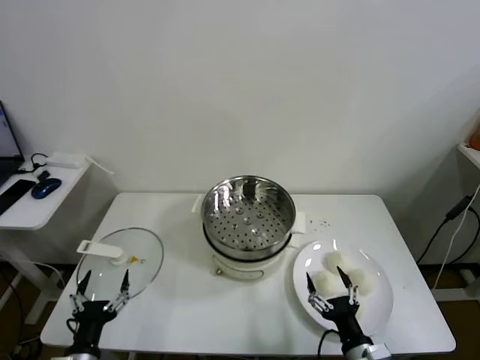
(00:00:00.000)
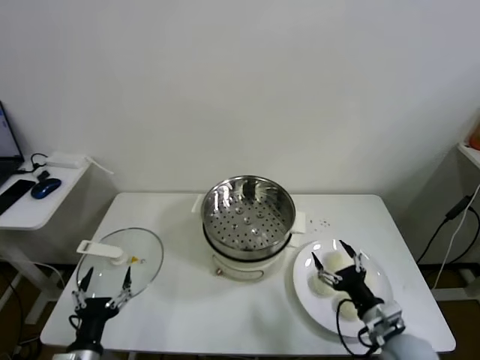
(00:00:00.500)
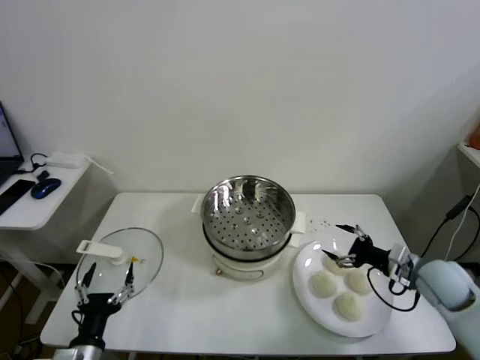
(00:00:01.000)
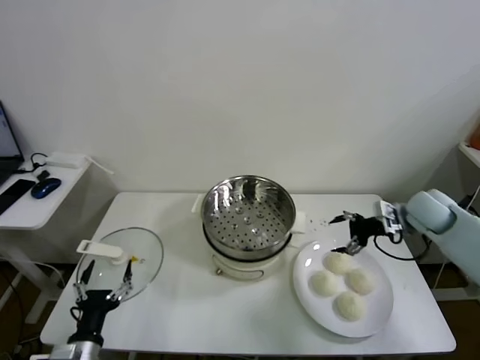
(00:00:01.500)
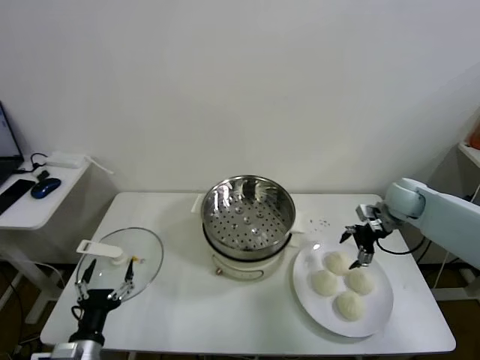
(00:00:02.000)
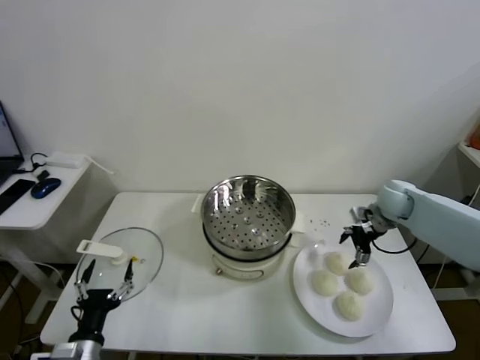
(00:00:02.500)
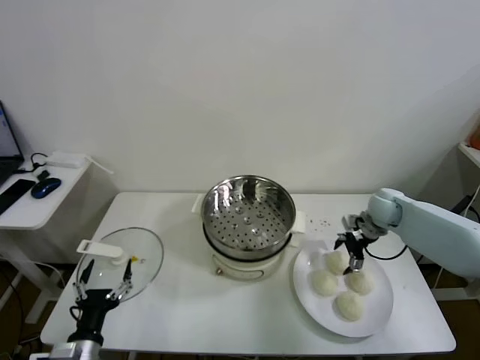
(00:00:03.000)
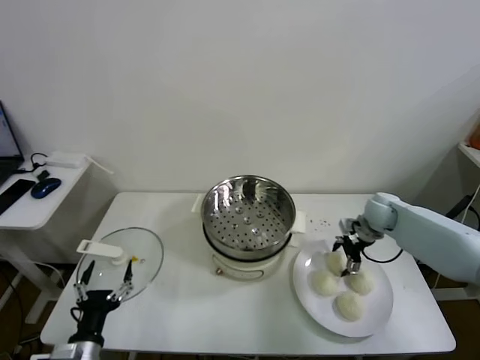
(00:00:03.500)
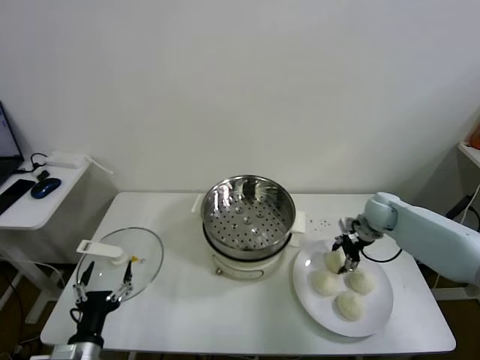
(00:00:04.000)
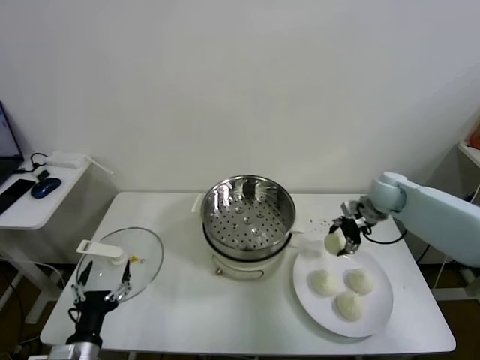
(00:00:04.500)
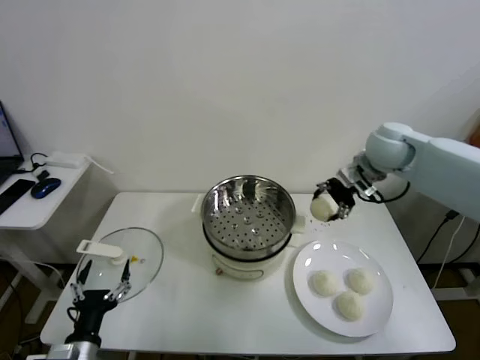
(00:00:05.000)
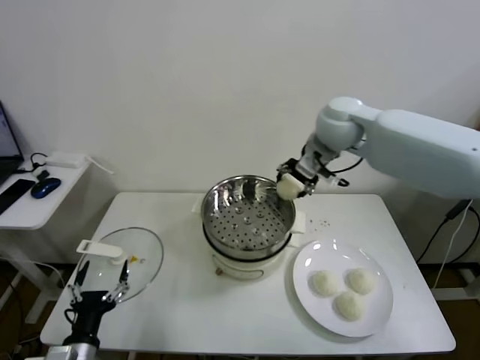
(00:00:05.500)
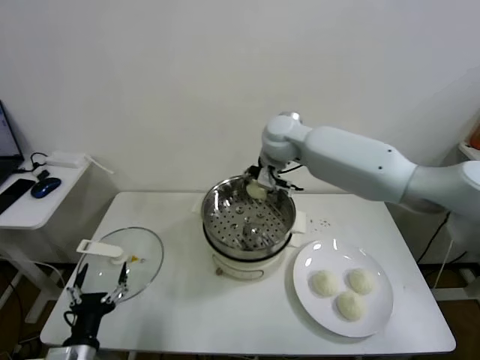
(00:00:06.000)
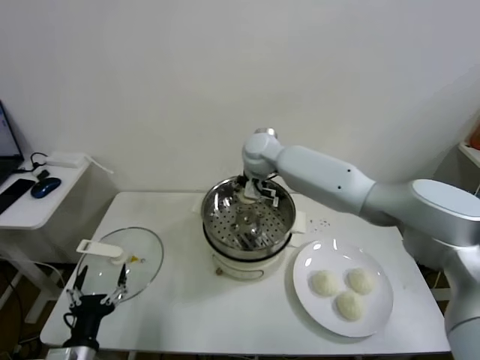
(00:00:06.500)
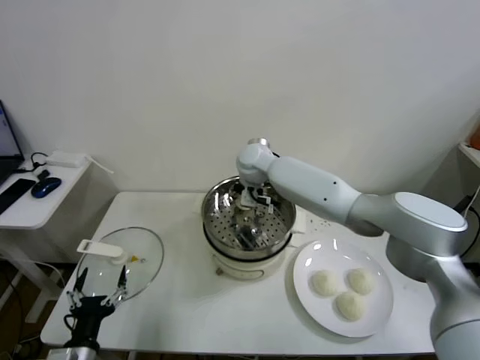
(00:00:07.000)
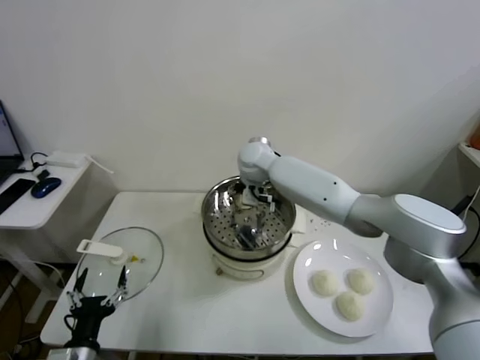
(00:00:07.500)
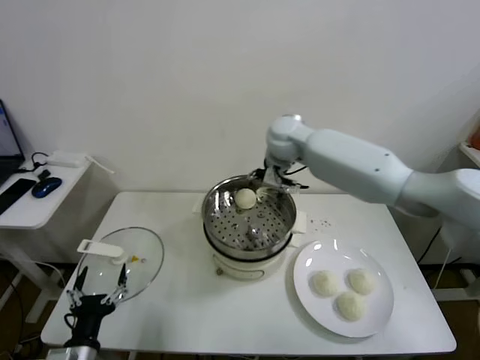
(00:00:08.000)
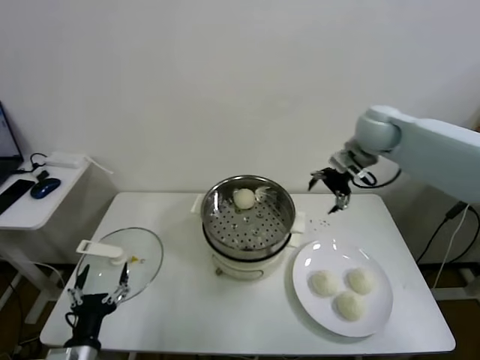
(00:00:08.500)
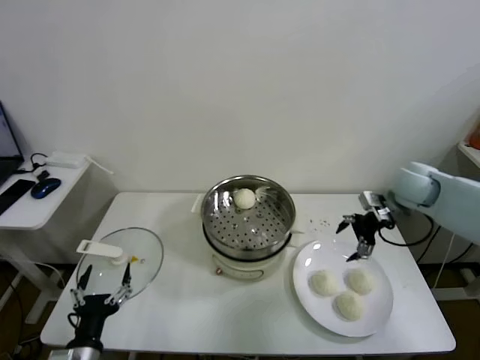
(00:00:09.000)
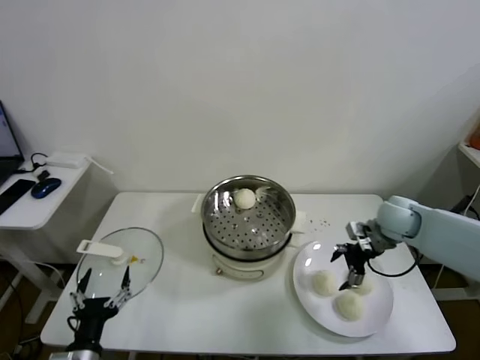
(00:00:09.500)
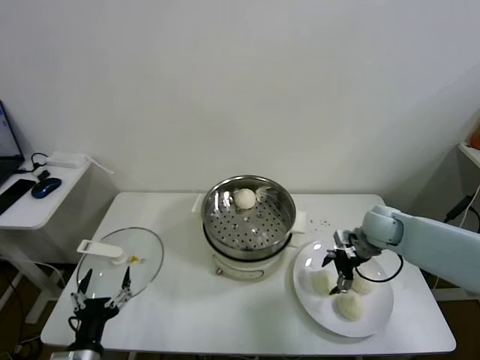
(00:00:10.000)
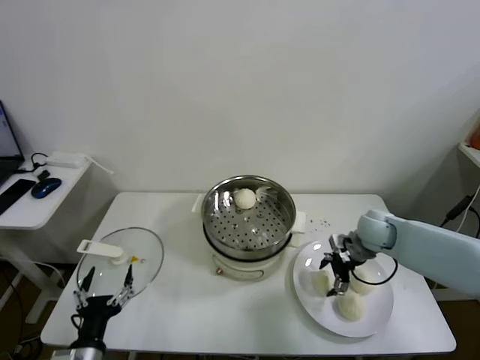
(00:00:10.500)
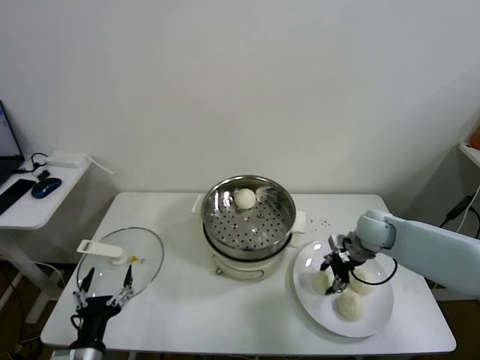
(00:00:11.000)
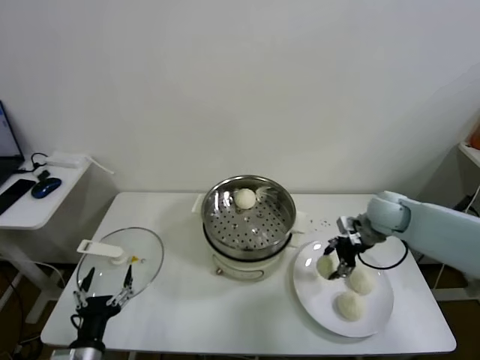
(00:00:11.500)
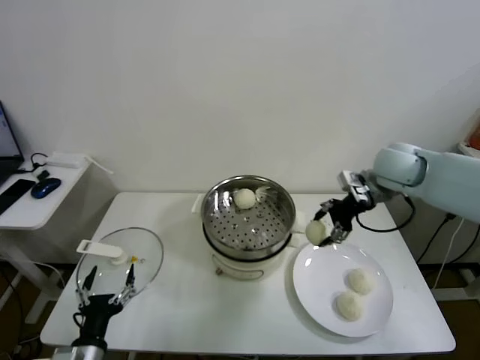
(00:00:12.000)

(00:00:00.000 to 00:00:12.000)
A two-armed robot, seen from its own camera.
Task of the whole recording: take steamed baozi put them in steamer.
Step, 00:00:00.000 - 00:00:03.500: Grasp the baozi in the plate with right gripper.
Step, 00:00:04.000 - 00:00:07.500: Place the baozi on the steamer with right gripper.
Step, 00:00:08.000 - 00:00:11.000: Grasp the baozi in the plate with right gripper.
00:00:02.000 - 00:00:04.000: The right gripper goes some 5 cm downward, and closes its fingers.
00:00:04.000 - 00:00:06.000: The right gripper shifts roughly 35 cm to the left and upward.
00:00:06.000 - 00:00:08.000: The right gripper shifts about 5 cm to the right, and opens up.
00:00:08.000 - 00:00:10.000: The right gripper is displaced to the right, downward and backward by about 30 cm.
00:00:10.000 - 00:00:12.000: The right gripper shifts some 20 cm upward, and closes its fingers.

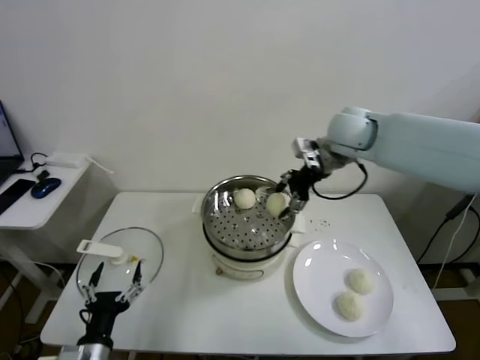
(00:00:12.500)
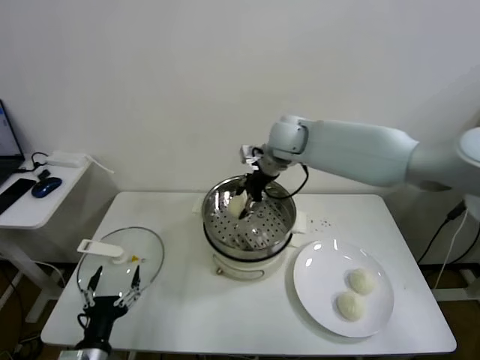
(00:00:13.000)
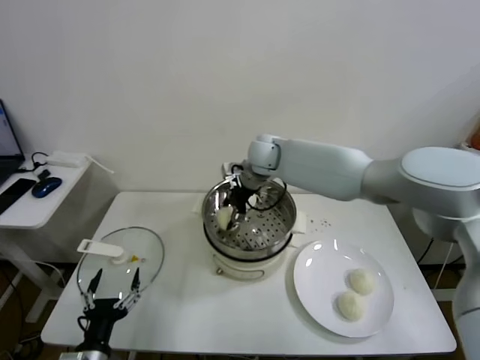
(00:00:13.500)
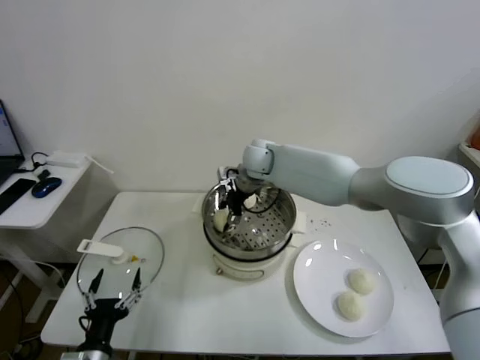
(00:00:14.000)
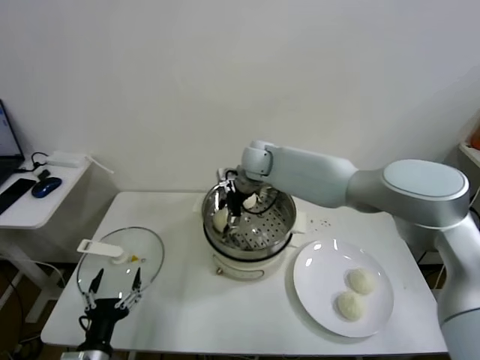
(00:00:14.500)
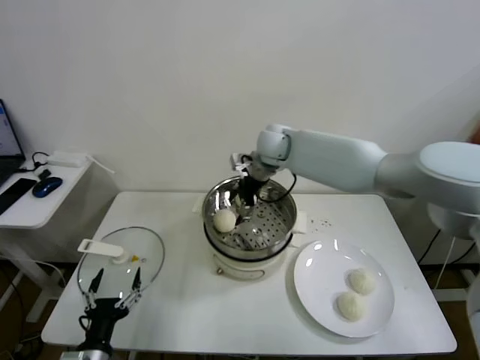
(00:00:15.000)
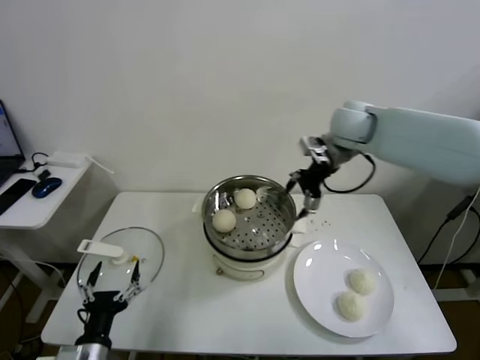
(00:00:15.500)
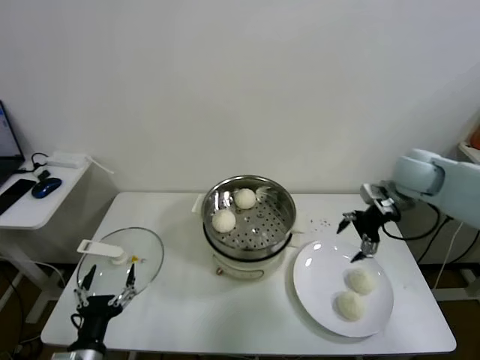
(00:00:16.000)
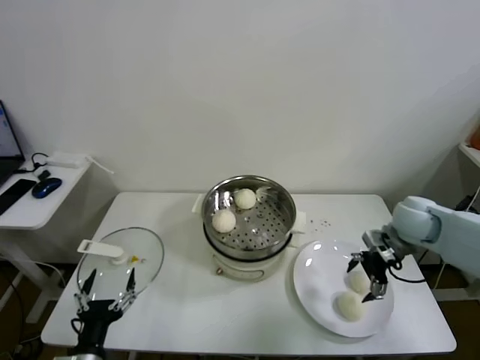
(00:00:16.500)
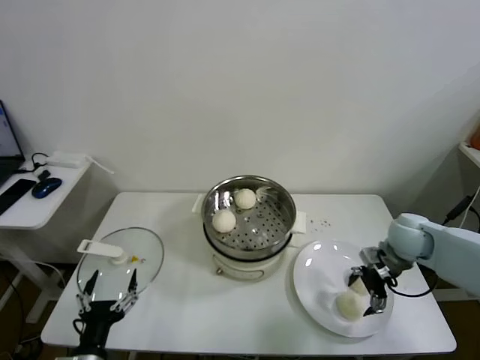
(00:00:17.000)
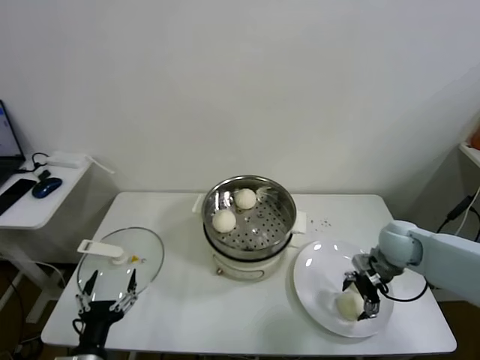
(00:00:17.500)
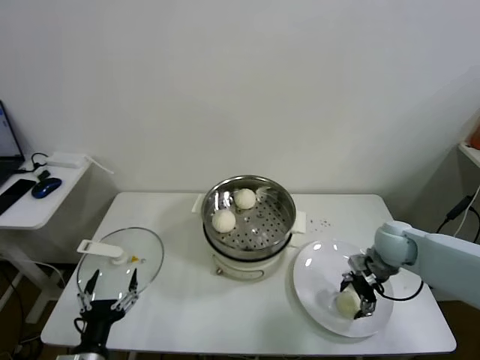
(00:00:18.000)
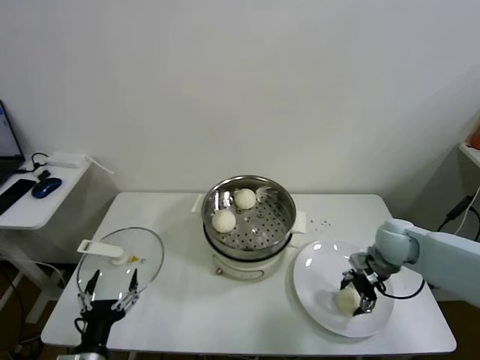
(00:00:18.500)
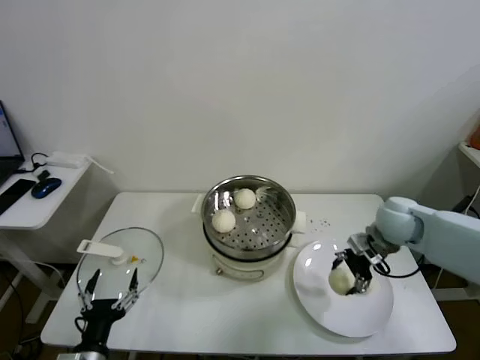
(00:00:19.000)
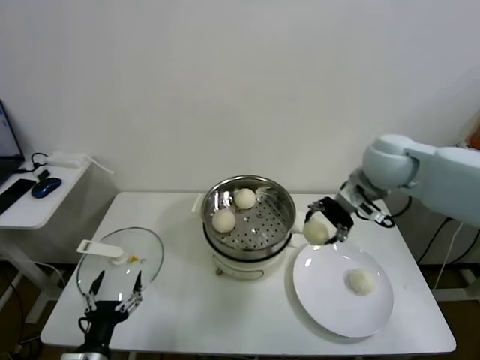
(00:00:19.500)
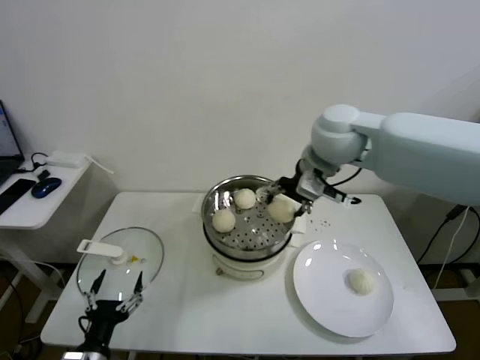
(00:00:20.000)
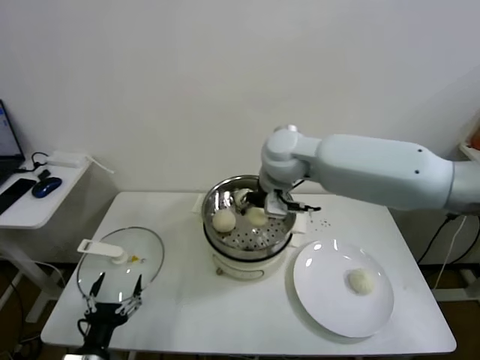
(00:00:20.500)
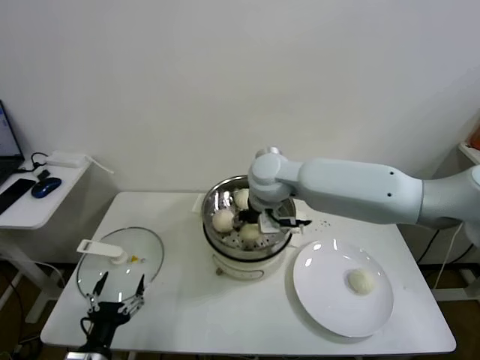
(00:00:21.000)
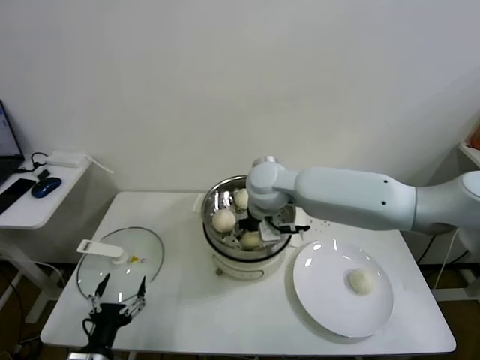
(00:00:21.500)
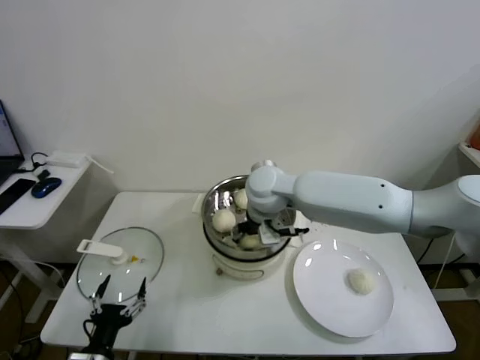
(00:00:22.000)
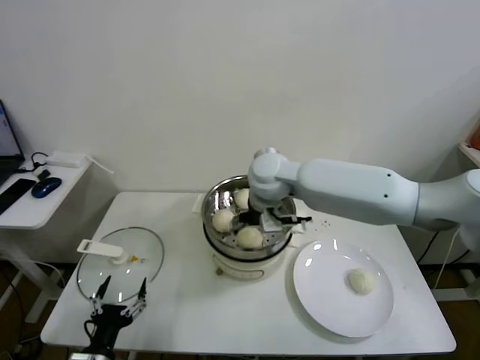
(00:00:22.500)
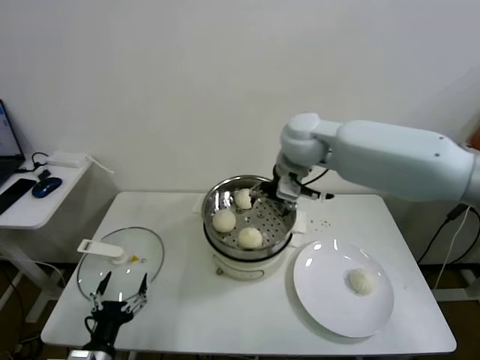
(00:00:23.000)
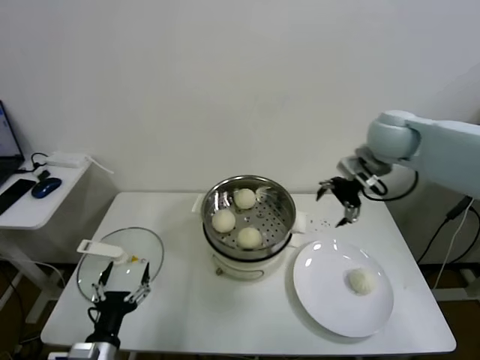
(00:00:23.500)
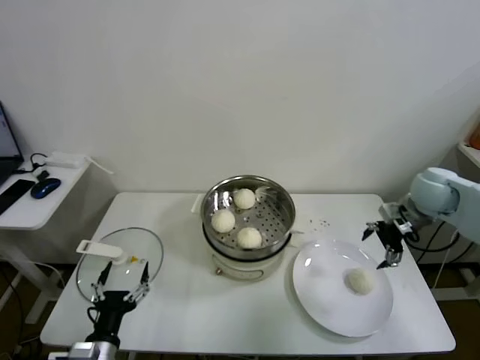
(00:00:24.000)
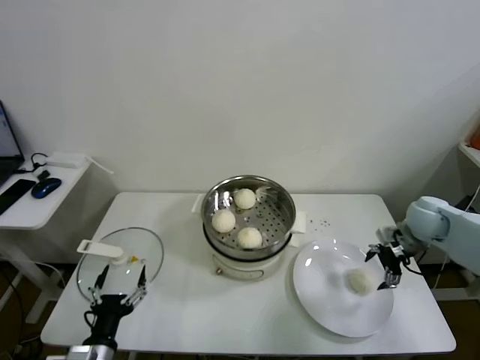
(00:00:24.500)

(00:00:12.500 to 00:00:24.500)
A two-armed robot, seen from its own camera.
Task of the whole recording: take steamed baozi put them in steamer.
Step, 00:00:12.500 - 00:00:14.500: Place the baozi on the steamer with right gripper.
Step, 00:00:15.000 - 00:00:18.000: Grasp the baozi in the plate with right gripper.
Step, 00:00:18.500 - 00:00:22.000: Place the baozi on the steamer with right gripper.
00:00:12.500 - 00:00:14.500: The right gripper shifts about 20 cm to the left and downward, and opens its fingers.
00:00:14.500 - 00:00:16.500: The right gripper moves to the right and backward, approximately 35 cm.
00:00:16.500 - 00:00:18.500: The right gripper heads downward, covering roughly 5 cm, and closes.
00:00:18.500 - 00:00:20.500: The right gripper moves to the left and upward, approximately 35 cm.
00:00:20.500 - 00:00:22.500: The right gripper shifts some 5 cm downward, and opens.
00:00:22.500 - 00:00:24.500: The right gripper shifts about 40 cm to the right.

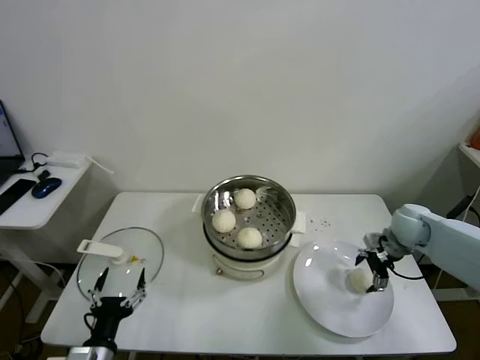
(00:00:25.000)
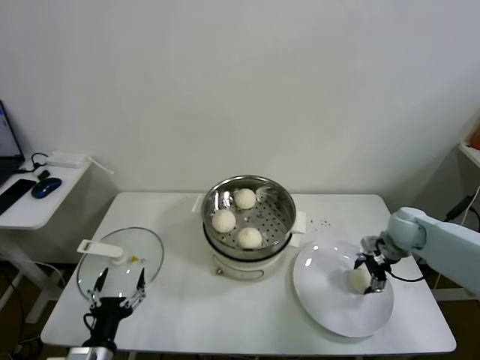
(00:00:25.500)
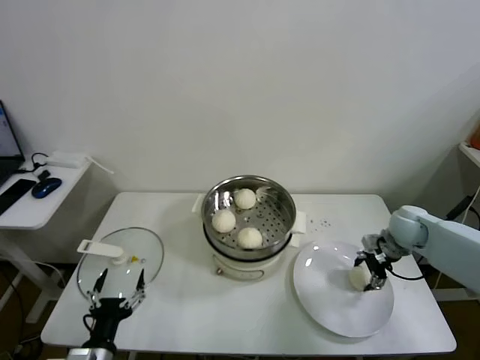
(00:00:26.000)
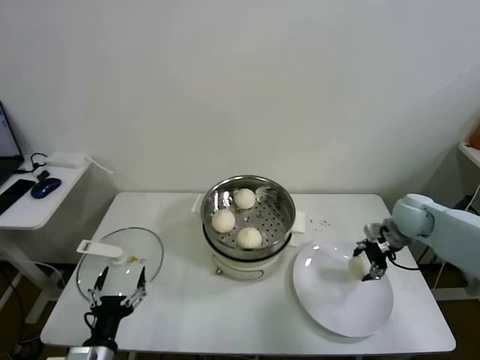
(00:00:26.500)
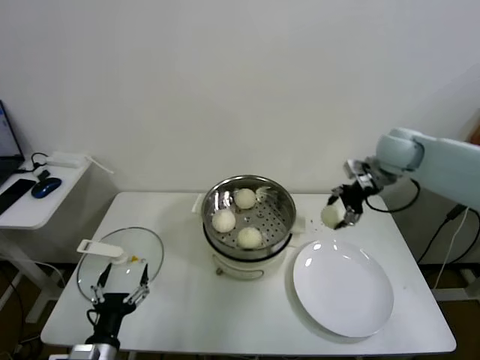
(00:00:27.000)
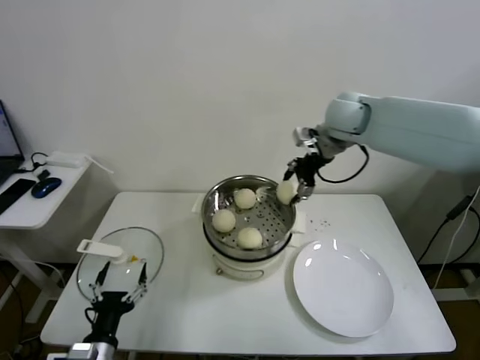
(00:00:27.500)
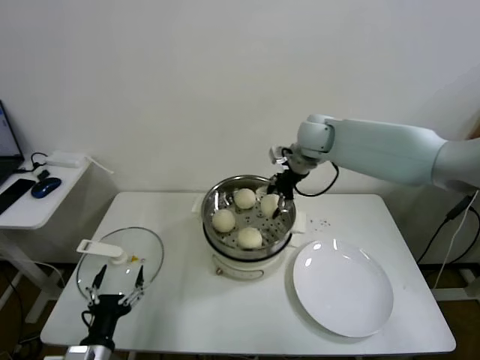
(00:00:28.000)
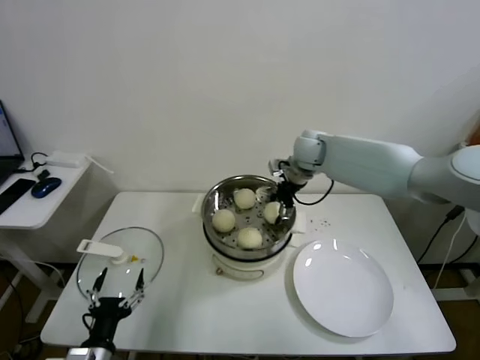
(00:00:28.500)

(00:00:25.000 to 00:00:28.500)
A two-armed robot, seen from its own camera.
Task of the whole recording: take steamed baozi put them in steamer.
00:00:25.000 - 00:00:27.000: The right gripper goes roughly 20 cm upward and to the left, and closes its fingers.
00:00:27.000 - 00:00:28.500: The right gripper is displaced to the left and forward by about 20 cm.
